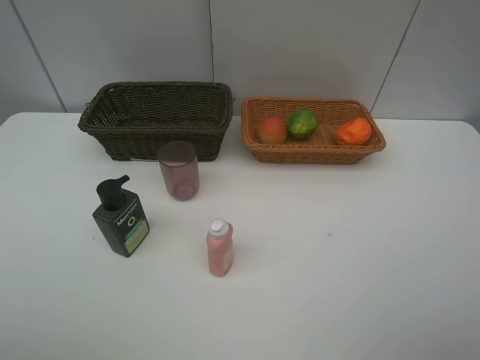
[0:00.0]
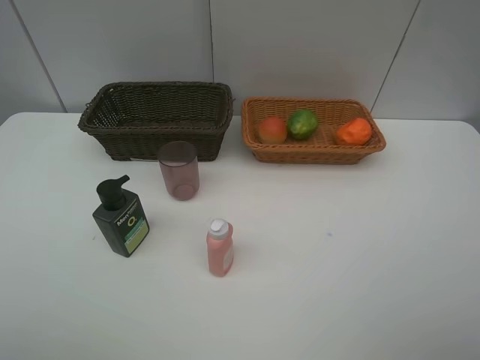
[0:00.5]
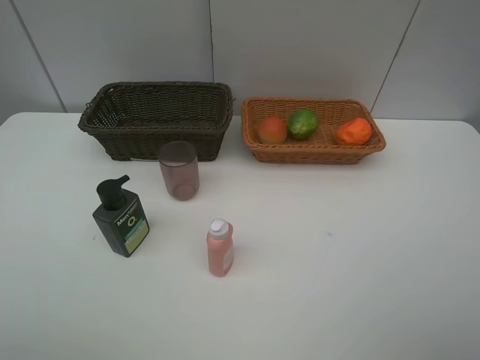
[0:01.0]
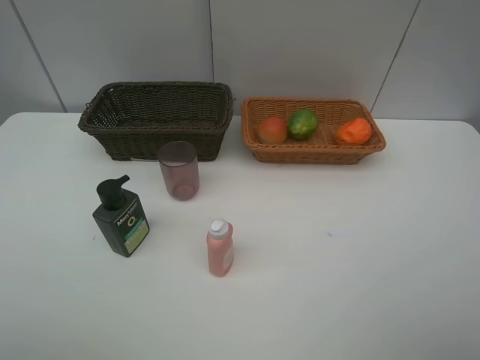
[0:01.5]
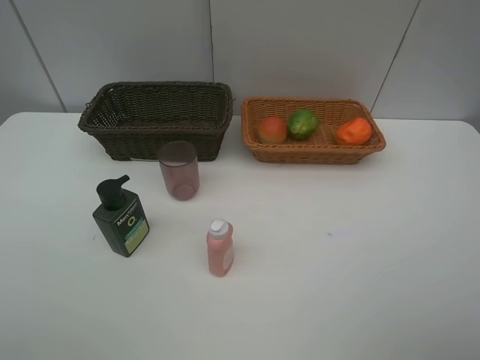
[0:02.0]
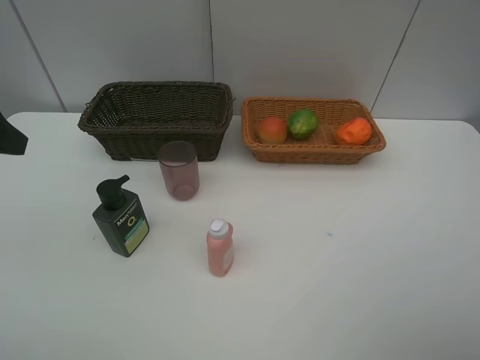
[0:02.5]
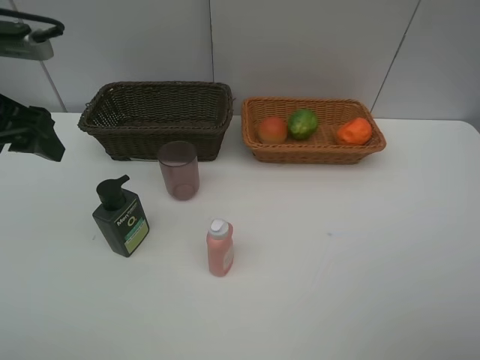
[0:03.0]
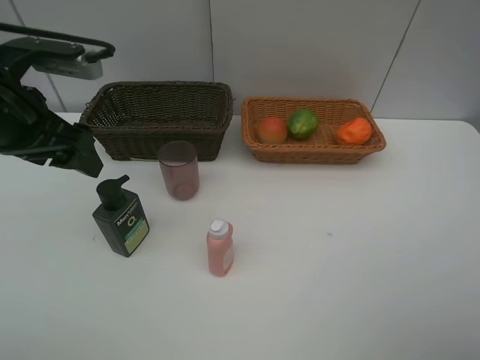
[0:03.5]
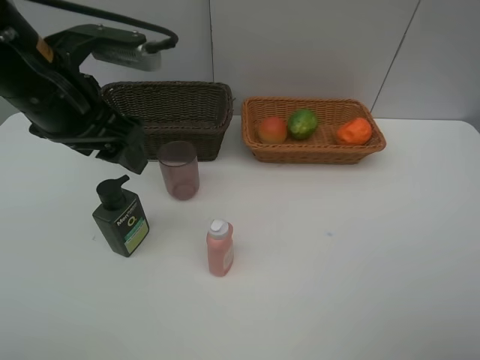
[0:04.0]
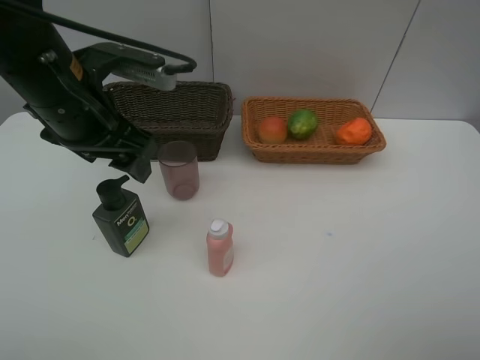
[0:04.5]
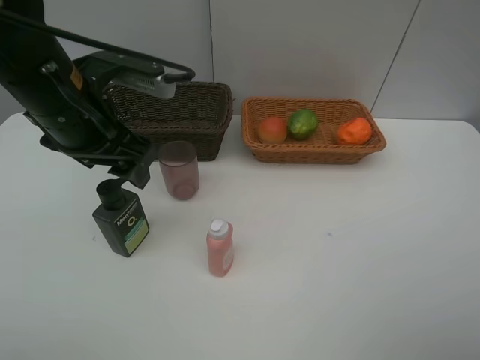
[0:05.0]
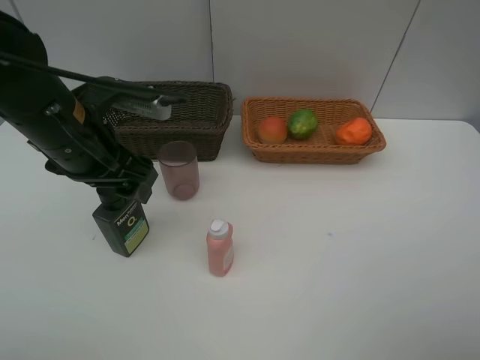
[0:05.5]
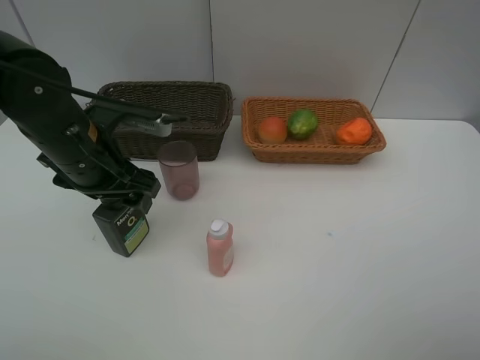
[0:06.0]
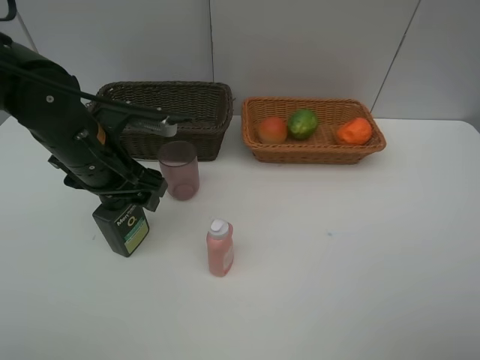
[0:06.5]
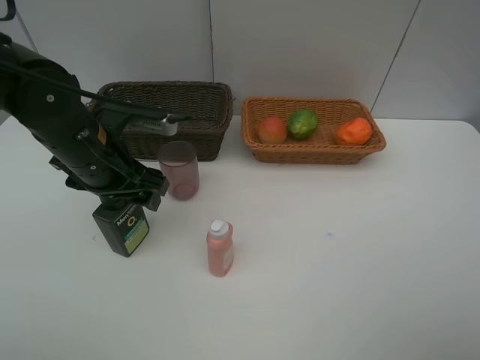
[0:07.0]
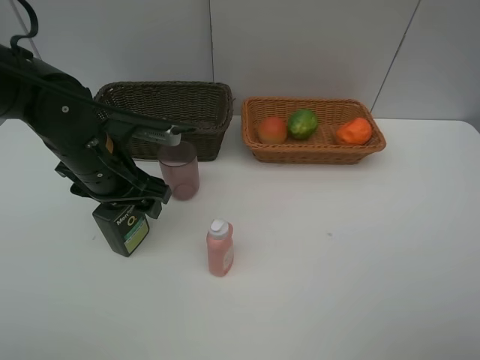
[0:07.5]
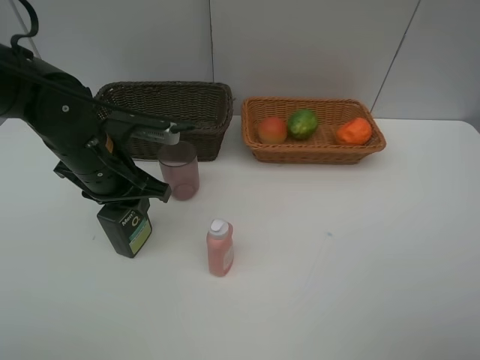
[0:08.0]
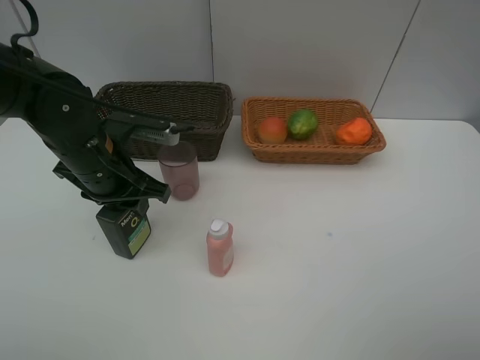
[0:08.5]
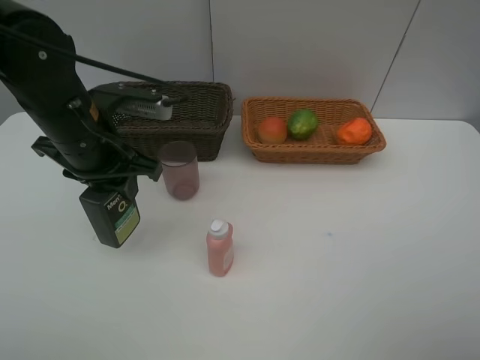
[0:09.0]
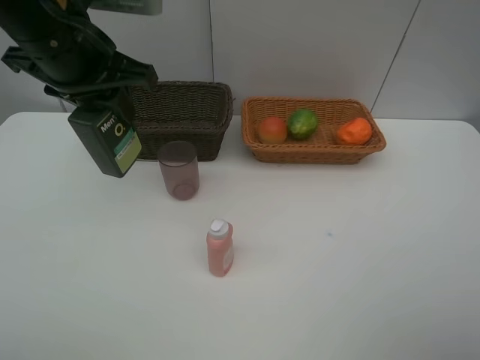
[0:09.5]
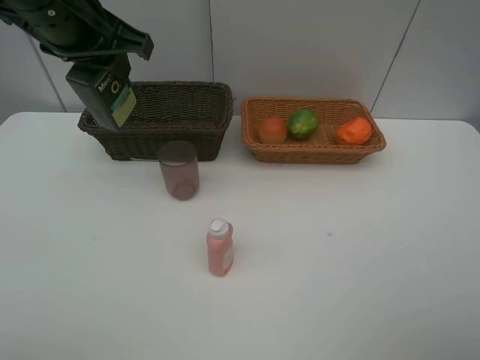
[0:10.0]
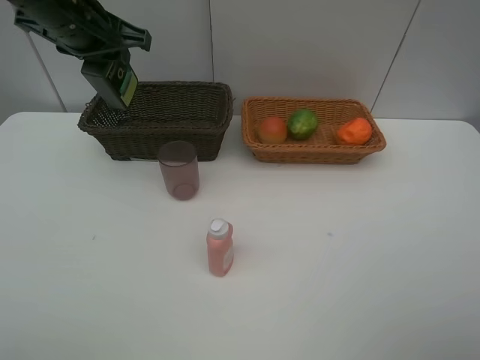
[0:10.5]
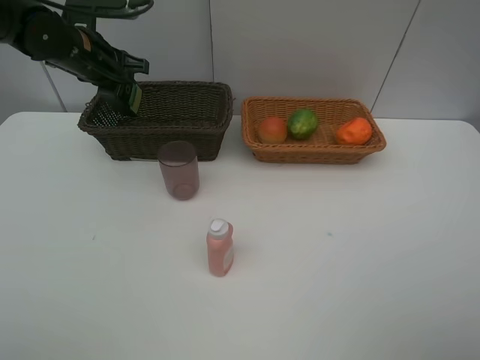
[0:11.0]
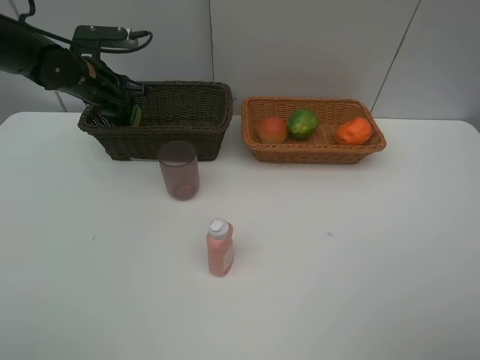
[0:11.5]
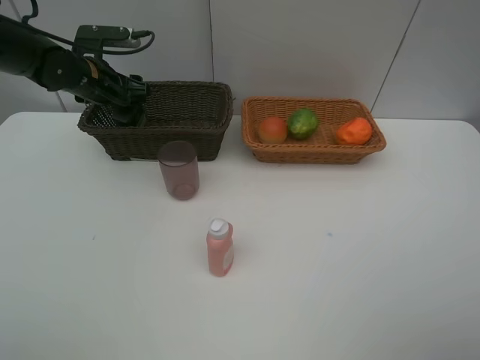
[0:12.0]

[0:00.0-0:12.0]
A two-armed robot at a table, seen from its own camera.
Task of the whole recording: place multiple objects separately in different baskets.
0:02.0 to 0:04.0: The left gripper shifts about 20 cm forward and to the right.
0:04.0 to 0:06.0: The left gripper heads downward, covering roughly 10 cm.
0:06.0 to 0:08.0: The left gripper closes.
0:08.0 to 0:10.0: The left gripper travels upward by approximately 15 cm.
0:10.0 to 0:12.0: The left gripper goes about 20 cm downward, forward and to the left, and opens.

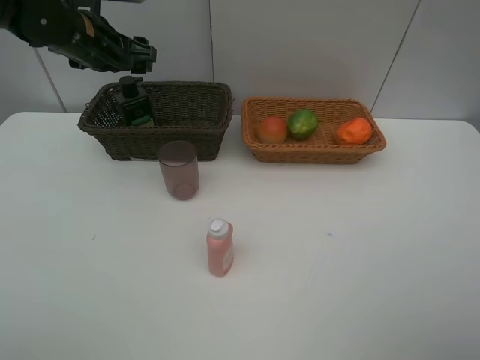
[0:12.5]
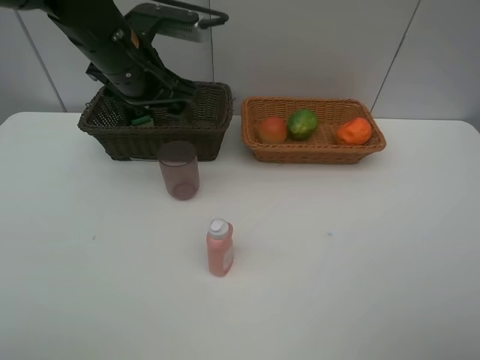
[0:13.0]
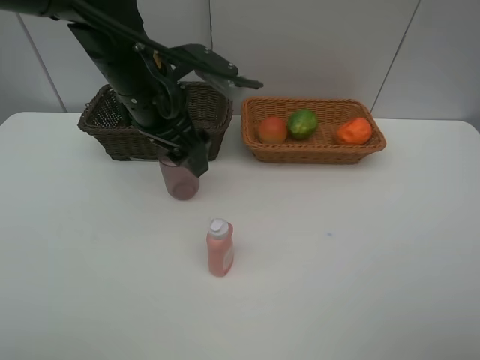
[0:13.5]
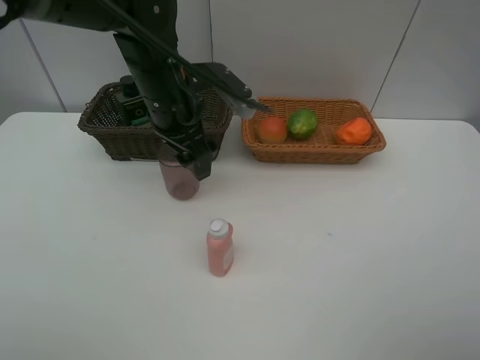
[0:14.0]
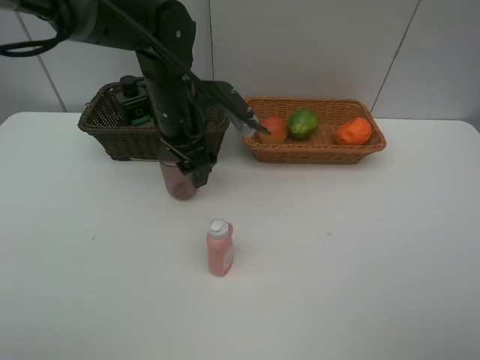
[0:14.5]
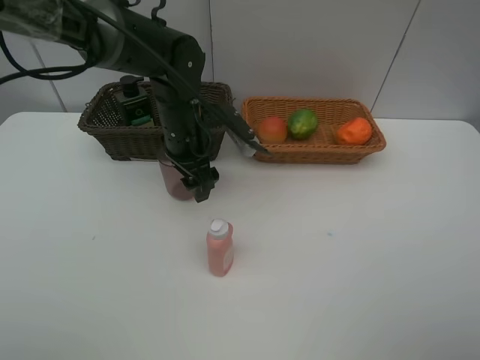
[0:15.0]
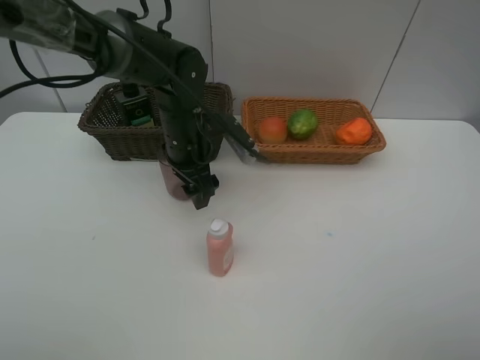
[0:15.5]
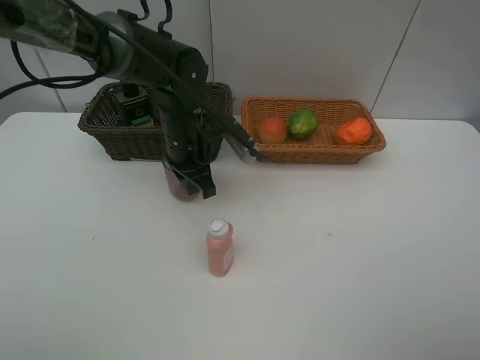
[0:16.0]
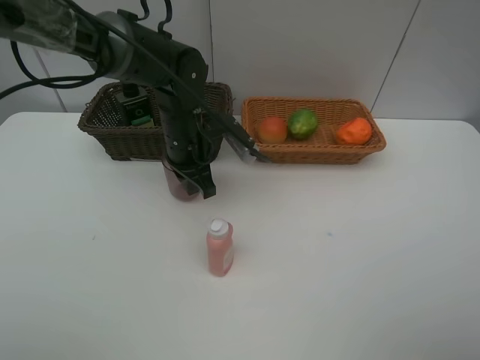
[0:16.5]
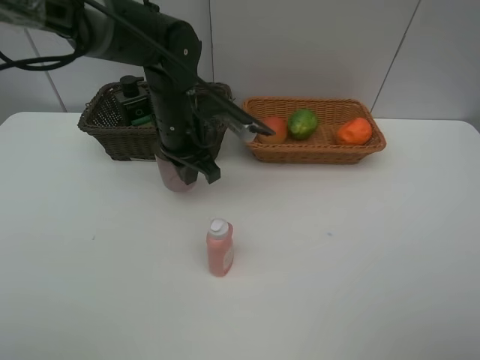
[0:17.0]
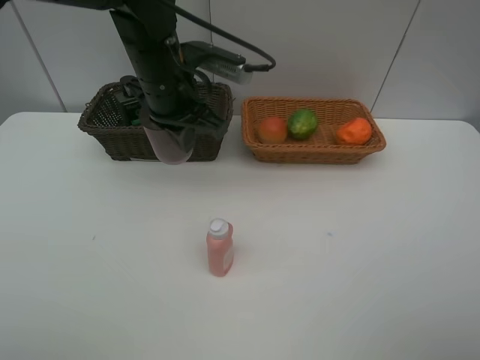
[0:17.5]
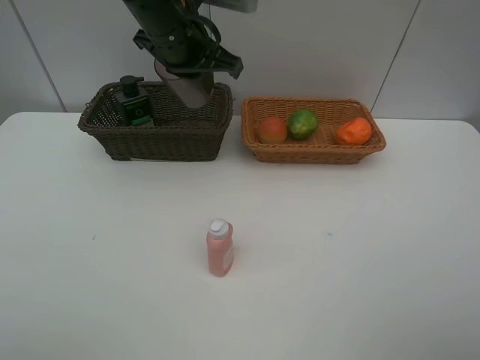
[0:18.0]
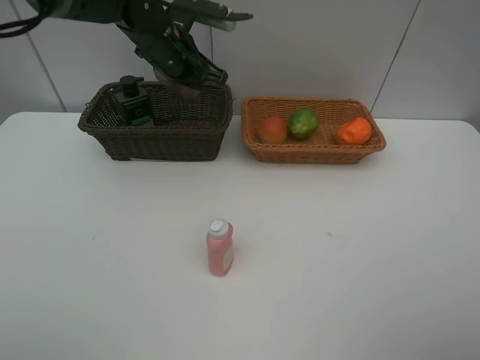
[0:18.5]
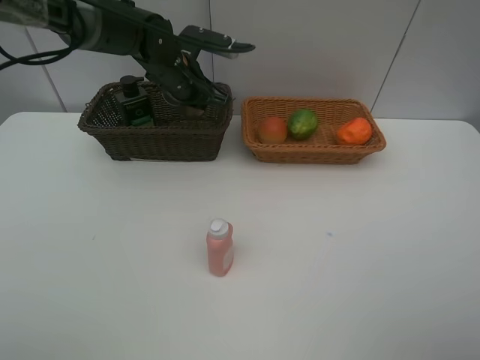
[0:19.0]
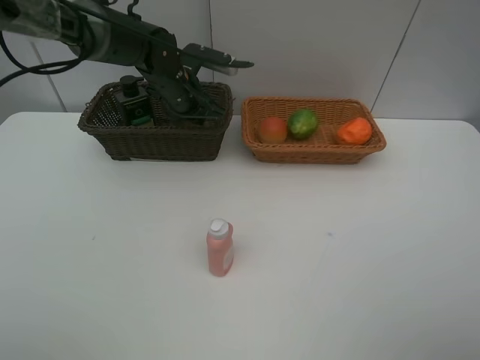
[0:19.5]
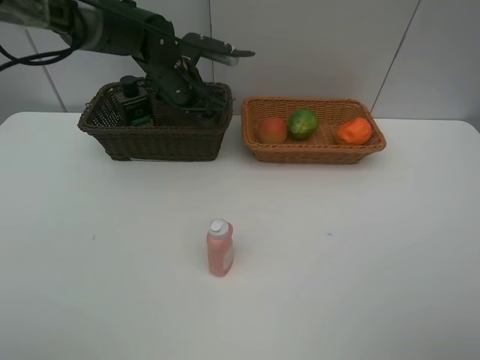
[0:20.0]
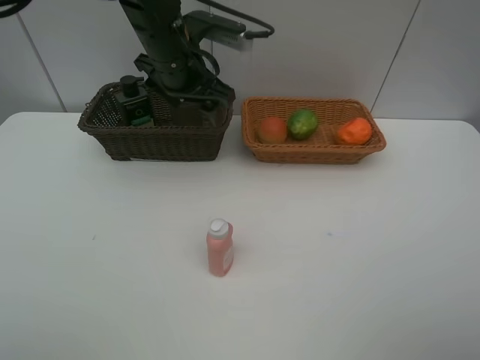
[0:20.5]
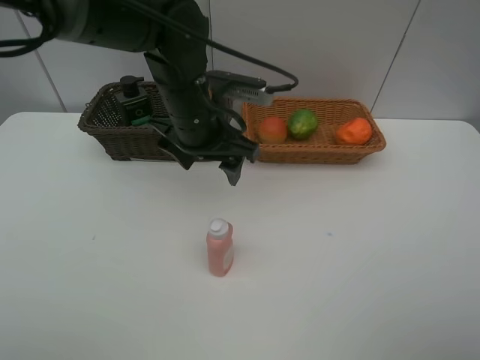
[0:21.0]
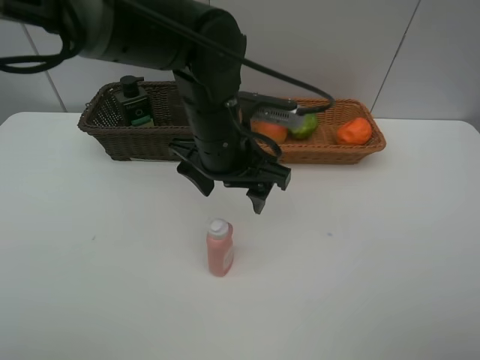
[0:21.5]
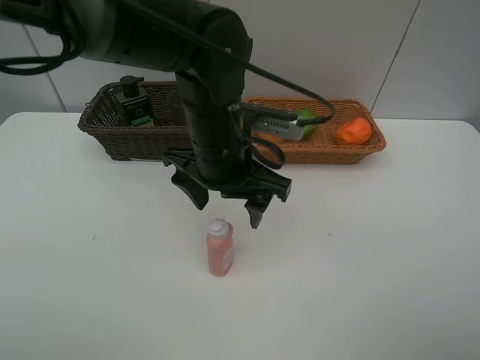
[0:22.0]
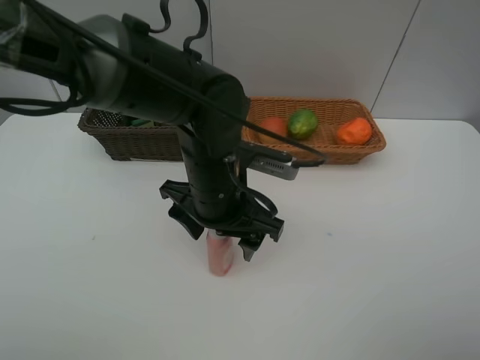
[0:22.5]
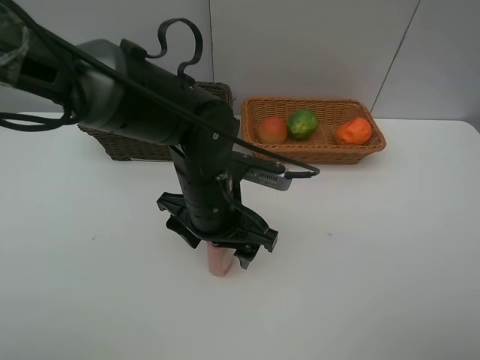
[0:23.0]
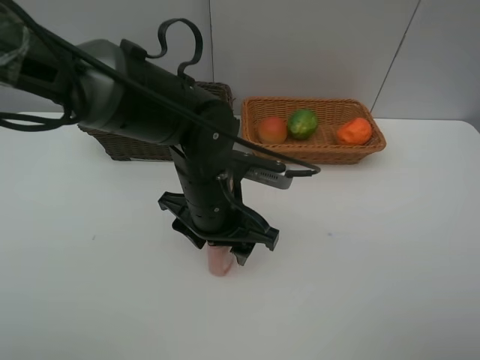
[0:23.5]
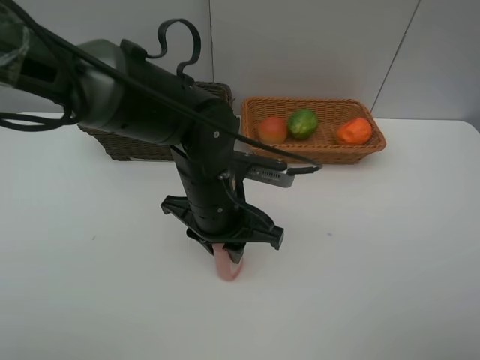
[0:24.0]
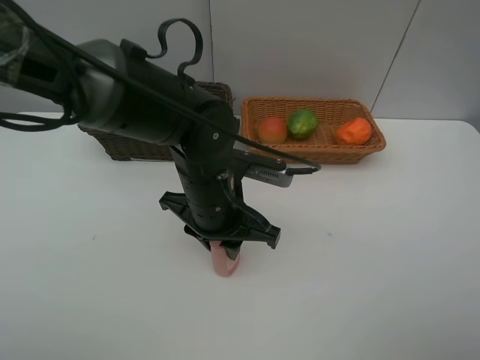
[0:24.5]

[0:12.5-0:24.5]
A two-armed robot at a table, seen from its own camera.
Task of the whole recording: place multiple objects separately in different baskets.
0:12.5 to 0:14.5: The left gripper heads to the right, downward and backward, covering some 15 cm.
0:14.5 to 0:16.5: The left gripper closes up.
0:16.5 to 0:18.5: The left gripper is displaced forward and upward by about 10 cm.
0:18.5 to 0:20.5: The left gripper moves backward, roughly 5 cm, reaches some 5 cm downward, then returns, and opens its fingers.
0:20.5 to 0:22.5: The left gripper heads backward, downward and to the right, covering approximately 20 cm.
0:22.5 to 0:24.5: The left gripper closes up.

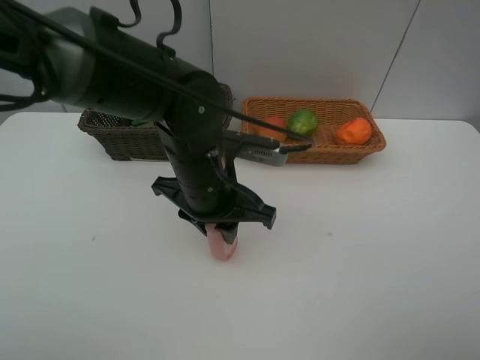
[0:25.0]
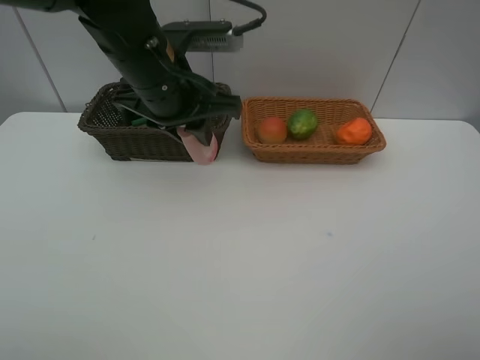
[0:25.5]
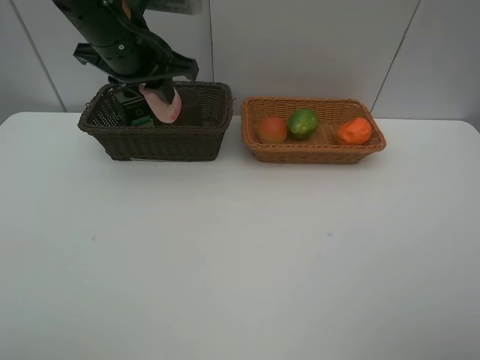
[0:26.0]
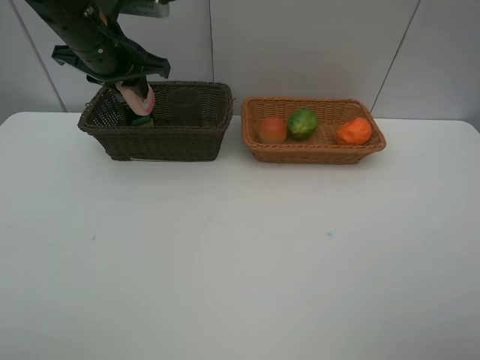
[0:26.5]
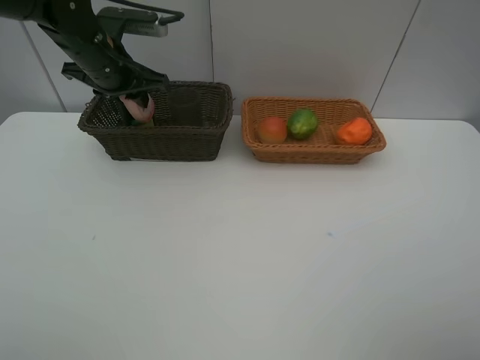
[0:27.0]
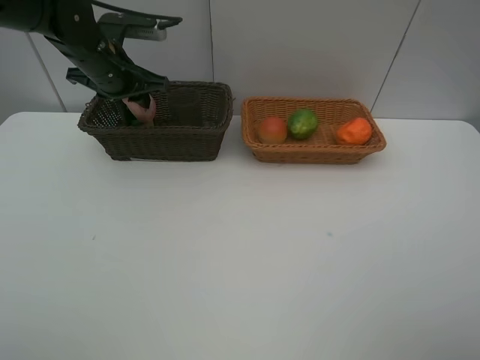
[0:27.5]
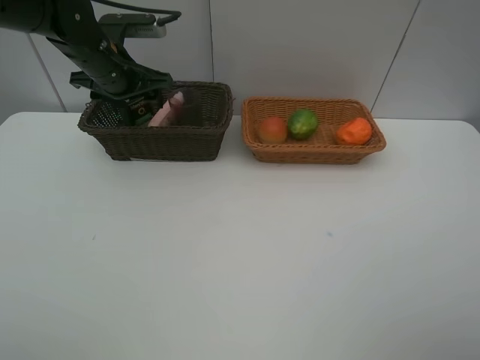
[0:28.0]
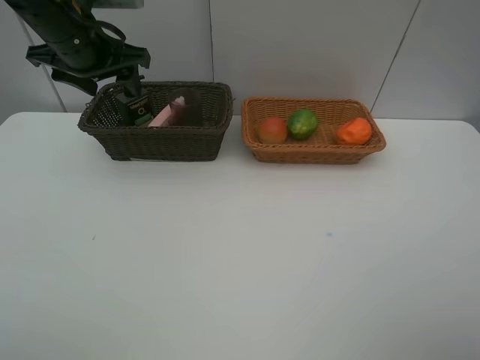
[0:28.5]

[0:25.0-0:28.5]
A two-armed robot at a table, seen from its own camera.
Task of the whole recording: place multiple objects separately in different baskets.
0:25.0 to 0:27.0: The left gripper heads forward and to the left, covering roughly 20 cm.
0:27.0 to 0:28.5: The left gripper shifts roughly 5 cm upward, and opens its fingers.
